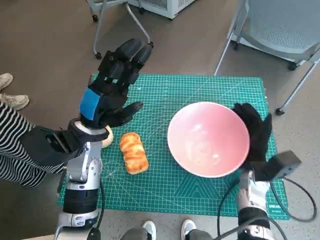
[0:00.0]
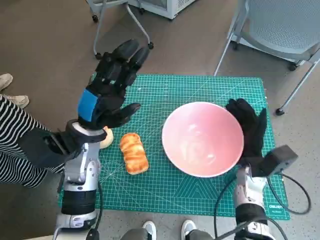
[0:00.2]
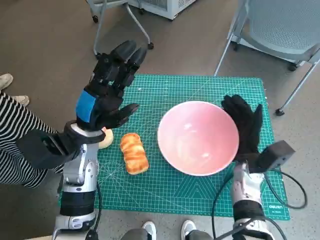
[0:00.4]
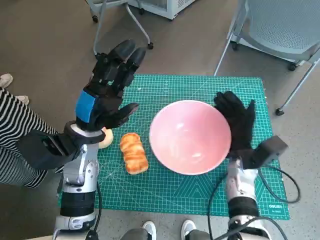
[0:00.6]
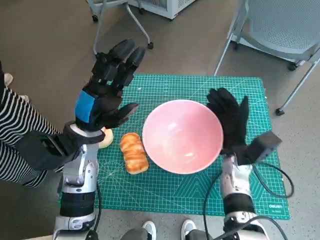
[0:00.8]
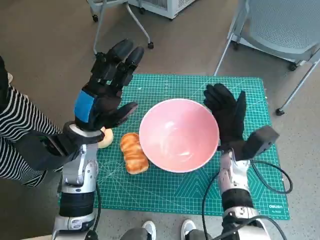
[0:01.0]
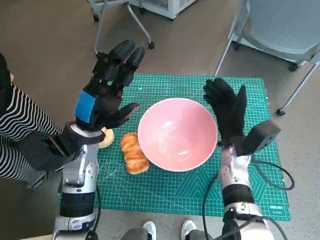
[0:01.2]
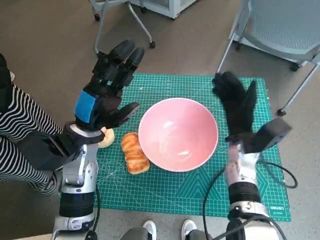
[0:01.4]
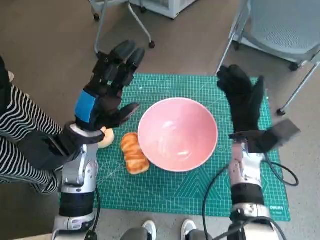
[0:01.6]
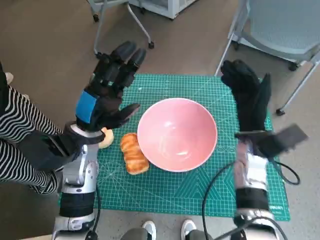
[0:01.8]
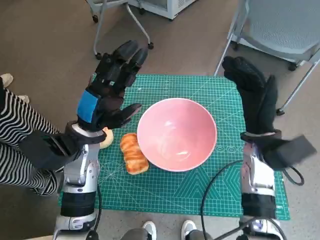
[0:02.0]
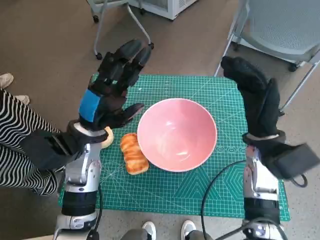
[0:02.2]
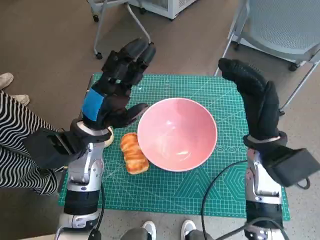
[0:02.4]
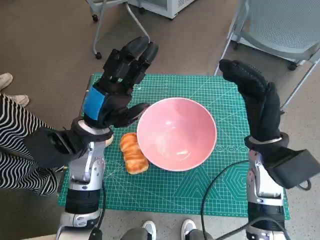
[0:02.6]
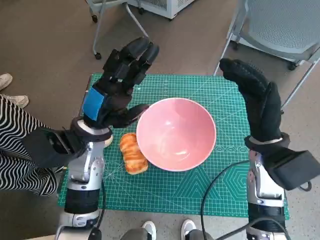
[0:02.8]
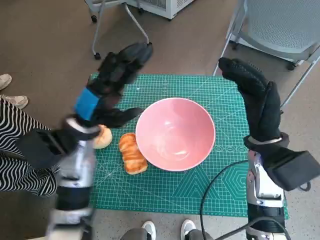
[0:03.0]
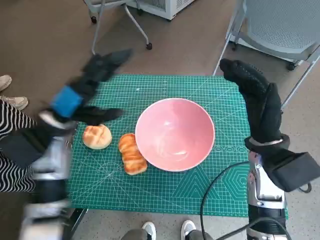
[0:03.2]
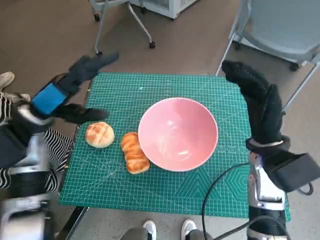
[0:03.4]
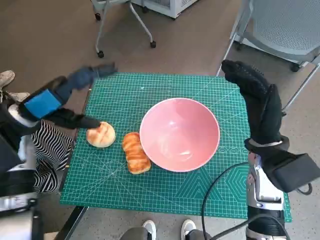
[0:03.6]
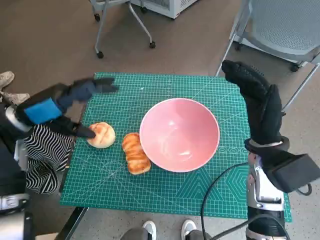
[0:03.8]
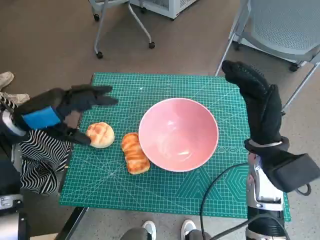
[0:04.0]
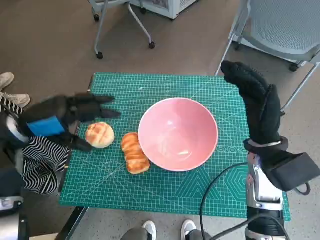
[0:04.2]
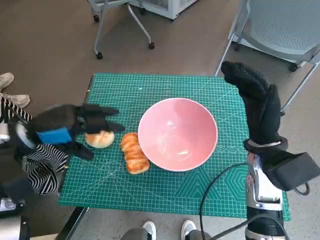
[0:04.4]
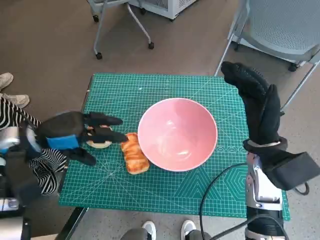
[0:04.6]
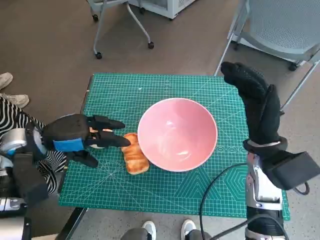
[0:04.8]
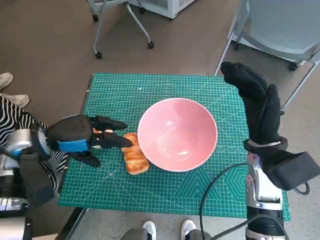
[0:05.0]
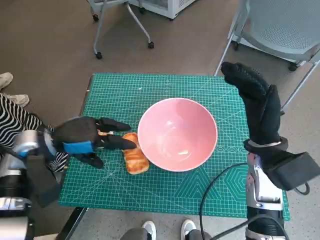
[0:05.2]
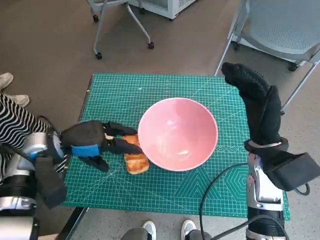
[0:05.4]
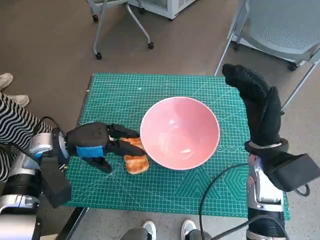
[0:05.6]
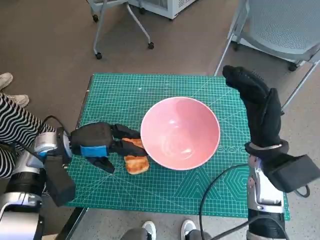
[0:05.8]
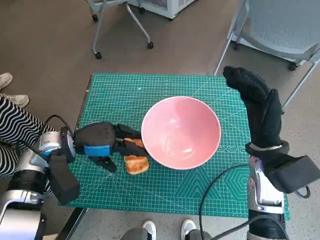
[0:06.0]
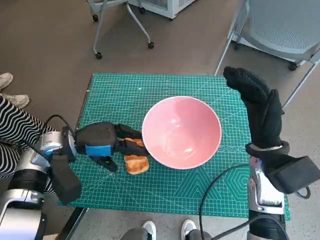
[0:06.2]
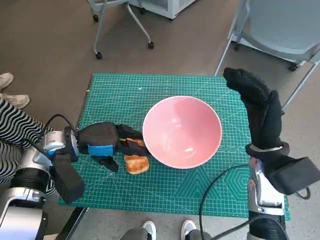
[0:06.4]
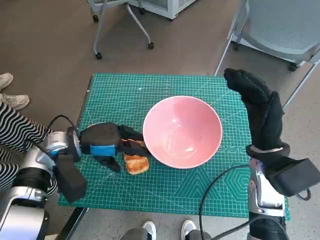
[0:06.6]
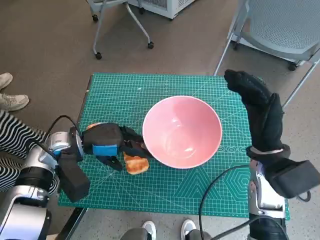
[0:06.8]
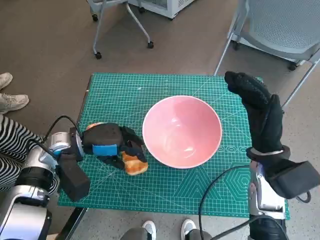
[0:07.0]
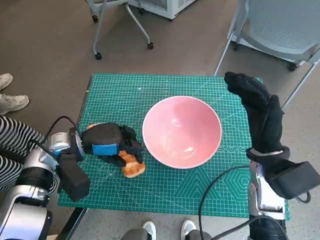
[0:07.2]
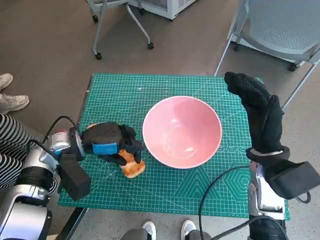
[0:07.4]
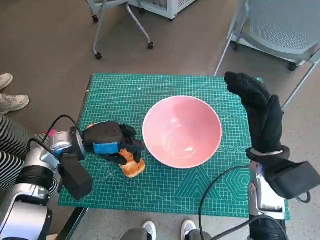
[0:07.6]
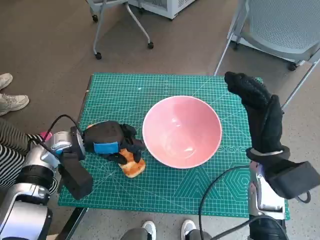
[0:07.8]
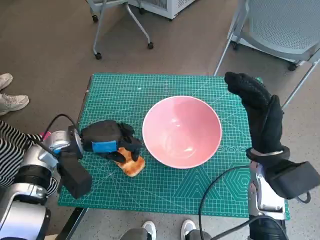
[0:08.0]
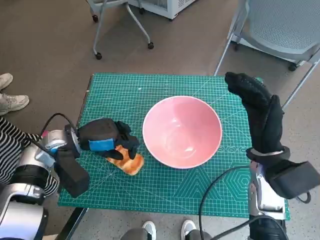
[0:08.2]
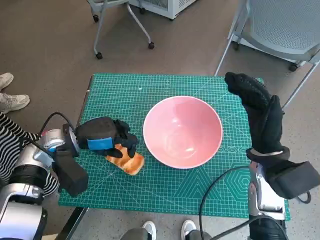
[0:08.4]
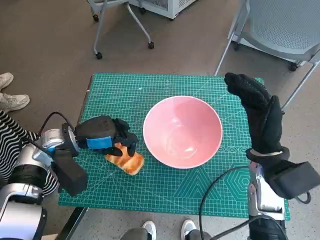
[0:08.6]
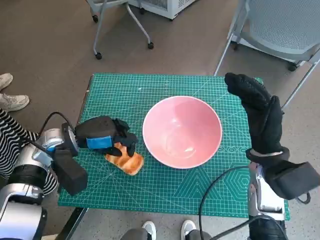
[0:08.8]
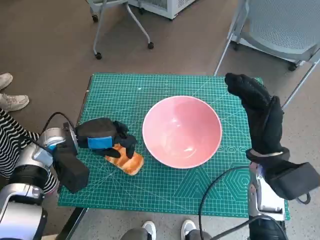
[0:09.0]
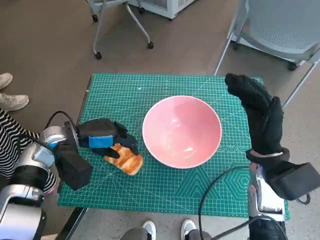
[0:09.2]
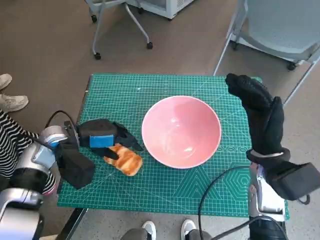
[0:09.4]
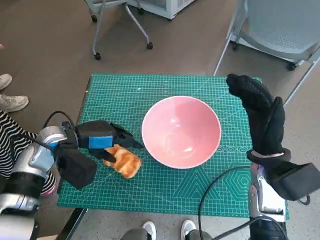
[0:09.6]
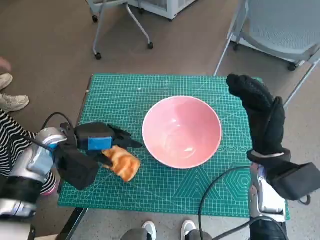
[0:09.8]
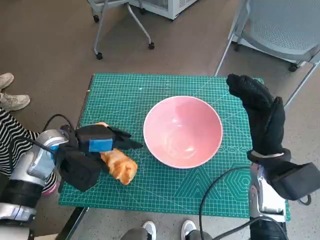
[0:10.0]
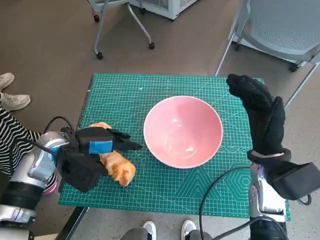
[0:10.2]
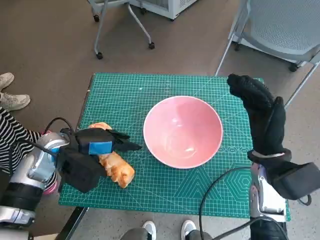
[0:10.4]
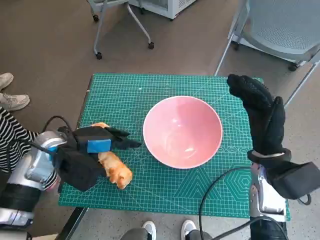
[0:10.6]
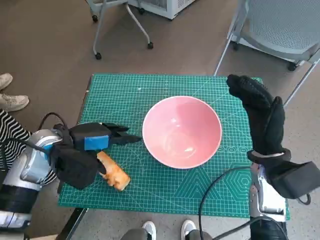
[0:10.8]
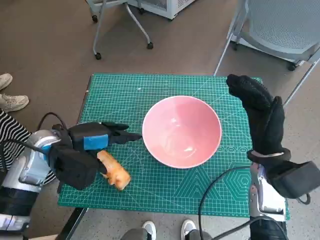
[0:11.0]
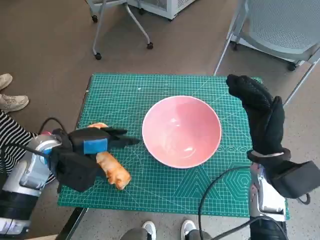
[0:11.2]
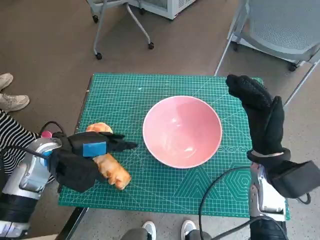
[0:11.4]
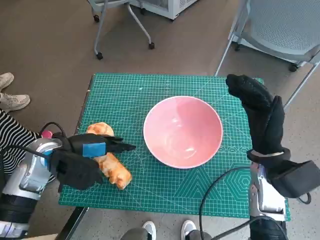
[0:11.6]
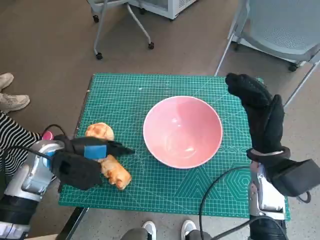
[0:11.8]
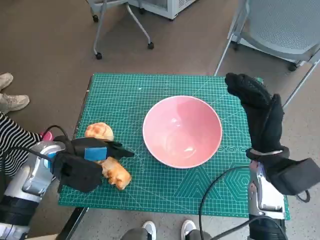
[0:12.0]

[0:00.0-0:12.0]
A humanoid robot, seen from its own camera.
Task of the whole recording: Push the bowl into the center of the table and put the bread into the bowl.
0:00.0 to 0:01.6: The right hand heads upward, covering about 5 cm.
0:01.6 to 0:03.0: The right hand heads upward, covering approximately 5 cm.
0:03.0 to 0:04.4: The left hand shifts approximately 10 cm to the left.
0:04.4 to 0:06.0: The left hand heads downward and to the right, covering about 10 cm.
0:06.0 to 0:09.0: The hands stay close to where they were, moving slightly.
0:10.4 to 0:12.0: The hands move only a little.

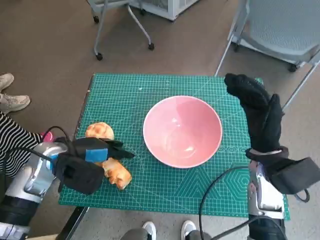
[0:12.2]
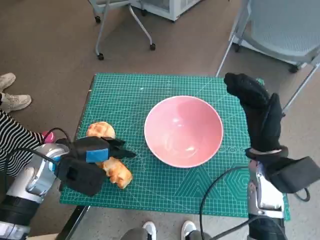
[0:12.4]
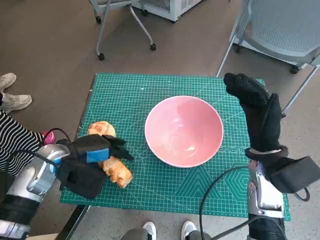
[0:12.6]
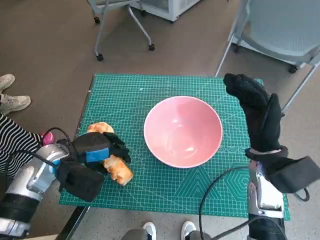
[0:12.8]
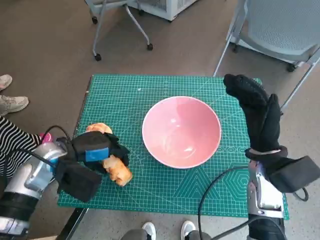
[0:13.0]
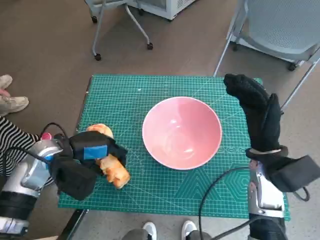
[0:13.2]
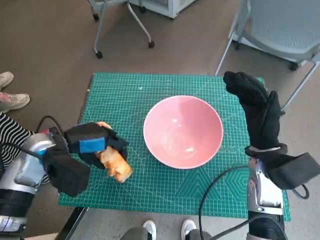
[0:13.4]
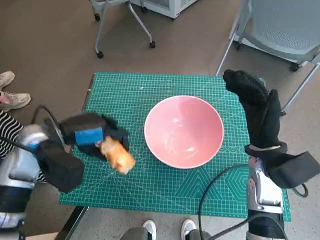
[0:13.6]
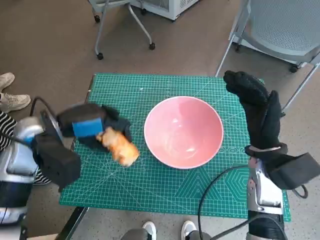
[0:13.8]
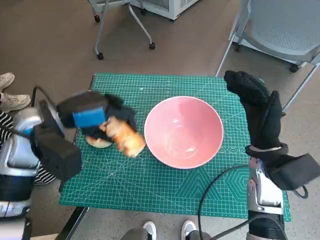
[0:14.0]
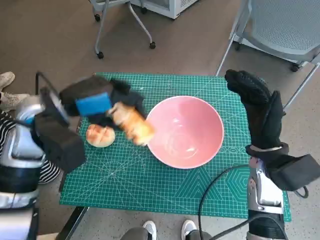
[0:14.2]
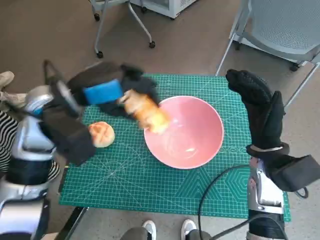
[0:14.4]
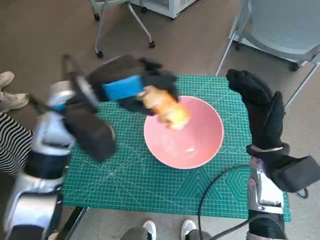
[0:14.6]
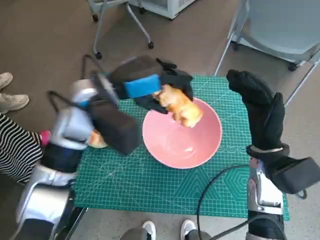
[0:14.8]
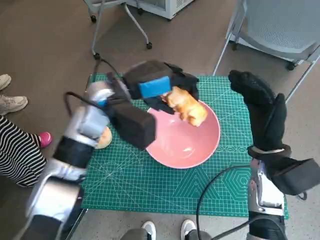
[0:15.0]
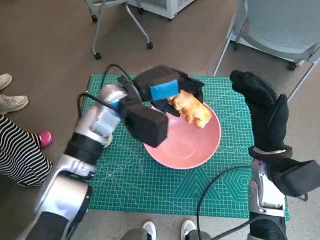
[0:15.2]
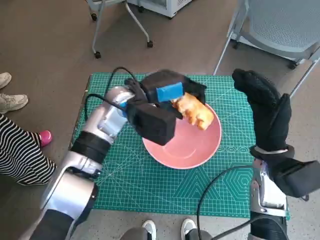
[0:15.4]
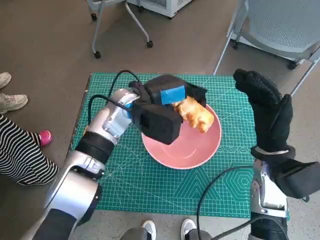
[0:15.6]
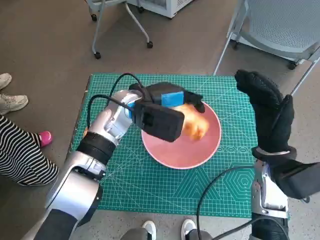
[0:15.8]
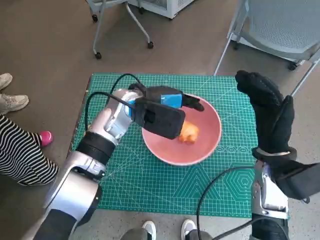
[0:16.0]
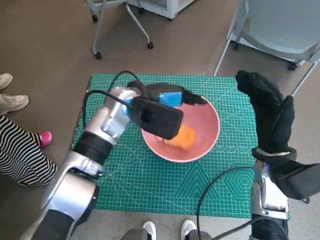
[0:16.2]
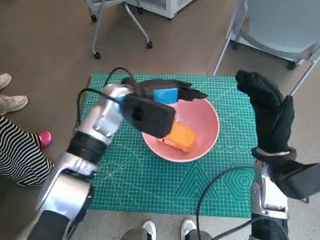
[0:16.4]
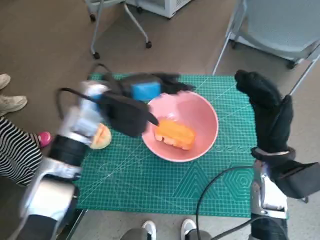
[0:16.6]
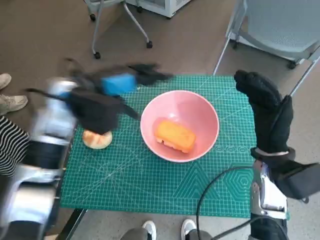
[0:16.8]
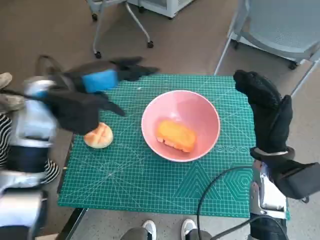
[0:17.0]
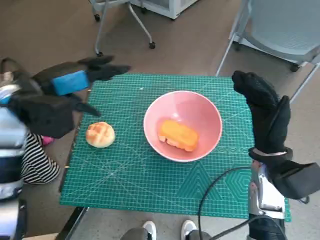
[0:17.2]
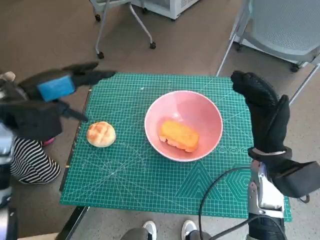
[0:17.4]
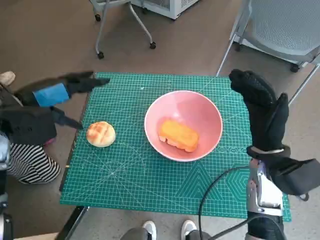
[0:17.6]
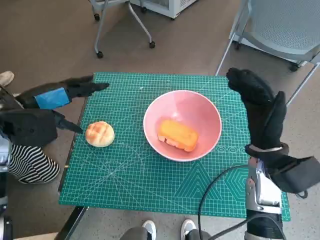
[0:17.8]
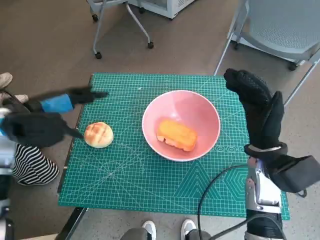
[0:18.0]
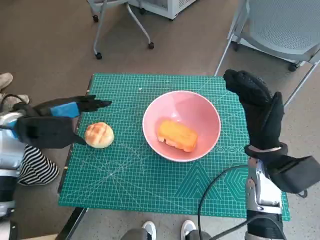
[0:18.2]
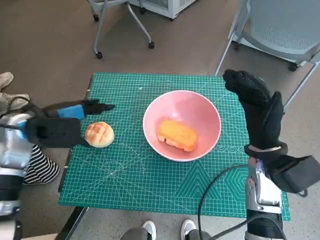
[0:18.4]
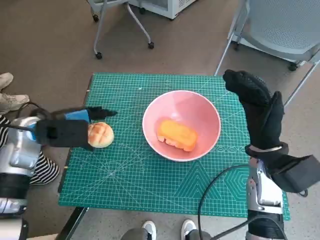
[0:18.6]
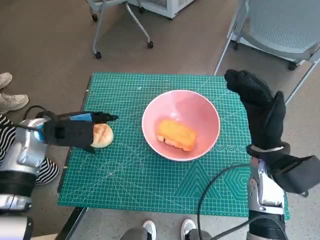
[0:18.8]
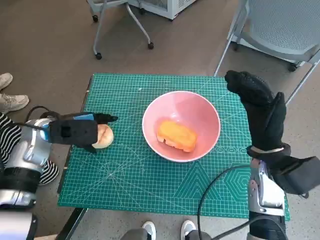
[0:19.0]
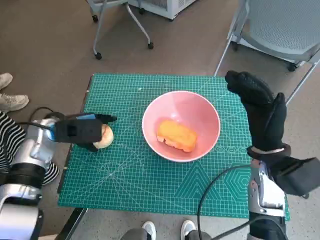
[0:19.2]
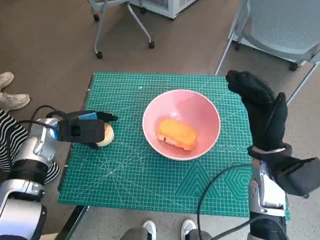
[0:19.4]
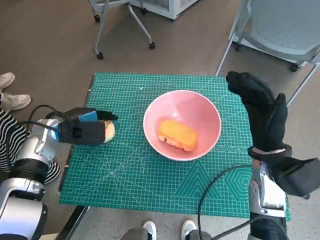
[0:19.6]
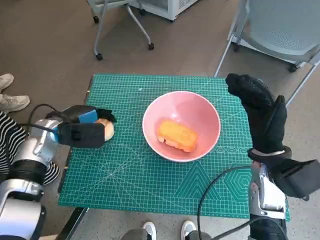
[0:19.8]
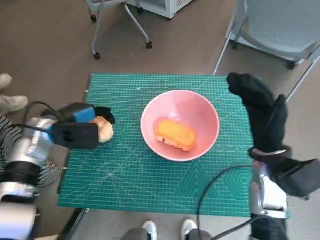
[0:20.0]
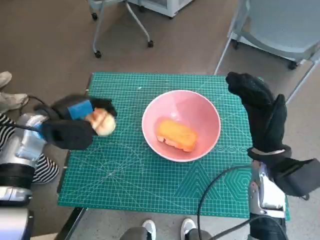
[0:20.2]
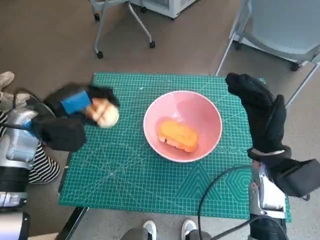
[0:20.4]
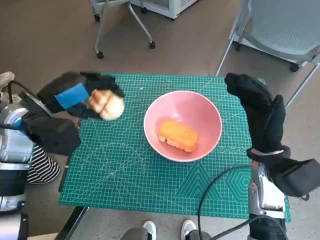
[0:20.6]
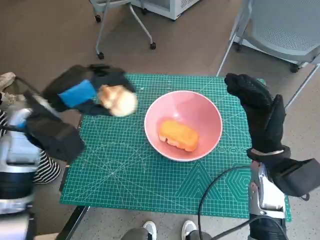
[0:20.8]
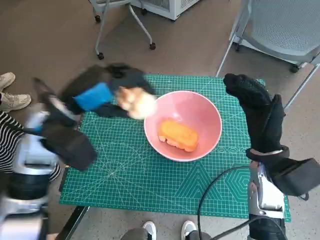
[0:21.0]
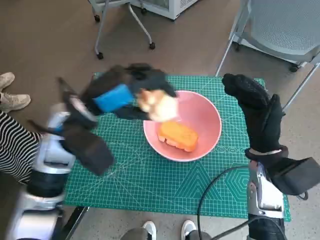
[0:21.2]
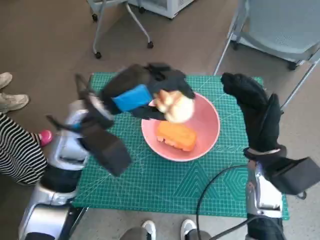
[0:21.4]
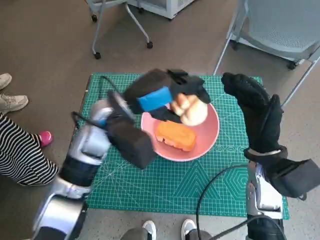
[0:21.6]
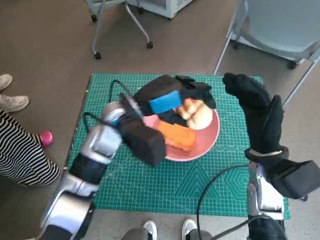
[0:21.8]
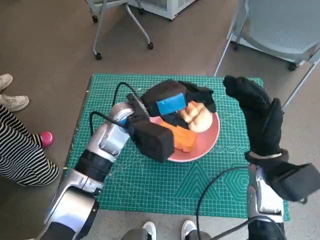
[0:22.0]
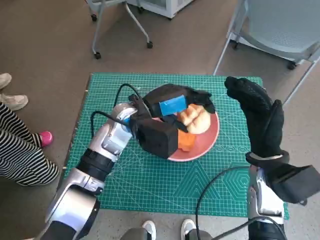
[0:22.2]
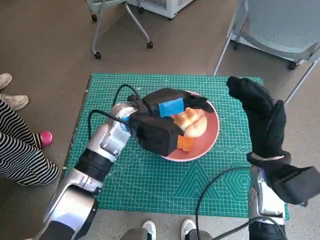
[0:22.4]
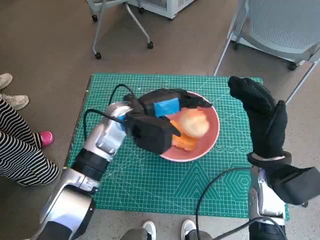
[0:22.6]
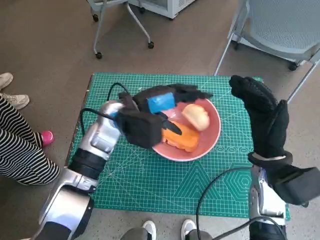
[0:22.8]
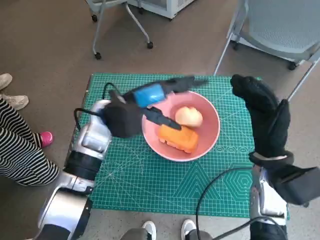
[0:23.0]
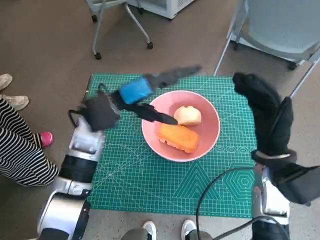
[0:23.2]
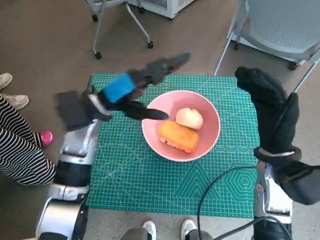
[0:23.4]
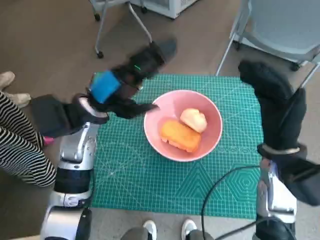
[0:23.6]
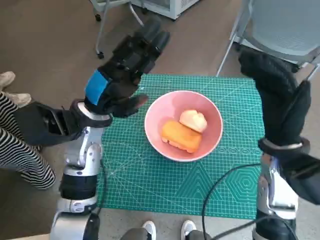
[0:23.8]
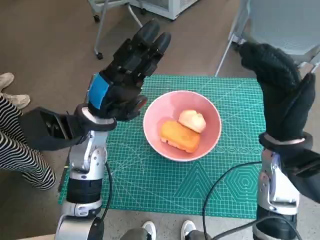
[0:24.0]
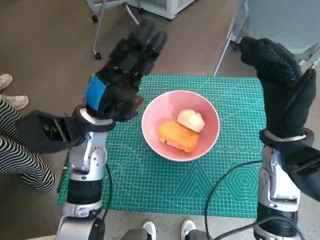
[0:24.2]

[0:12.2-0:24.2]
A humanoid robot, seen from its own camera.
Task of the whole recording: Push the bowl into the center of the table and put the bread into the bowl.
Step, 0:13.0 to 0:16.4: Place the long bread in pink bowl with left hand.
Step, 0:16.6 to 0:19.6: Grasp the round bread with left hand.
Step, 0:19.8 to 0:22.8: Place the round bread in pink bowl with left hand.
0:12.2 to 0:13.8: The left hand moves upward, approximately 5 cm.
0:13.8 to 0:15.2: The left hand is displaced to the right and forward by approximately 15 cm.
0:16.6 to 0:18.2: The left hand shifts some 15 cm to the left.
0:18.2 to 0:19.8: The left hand moves downward, approximately 10 cm.
0:19.8 to 0:21.2: The left hand is displaced upward and to the right by approximately 15 cm.
0:21.2 to 0:22.6: The left hand shifts about 10 cm to the right and downward.
0:22.6 to 0:24.2: The left hand is displaced to the left by approximately 5 cm, while the right hand moves upward, about 5 cm.
